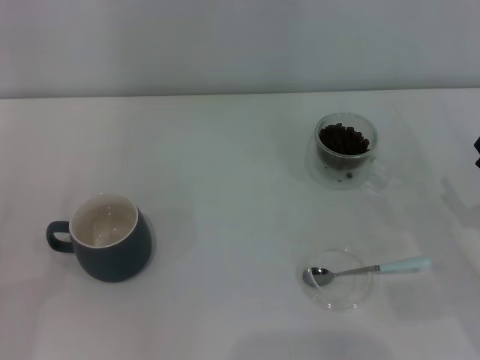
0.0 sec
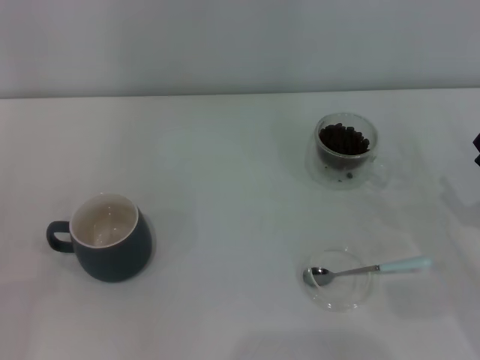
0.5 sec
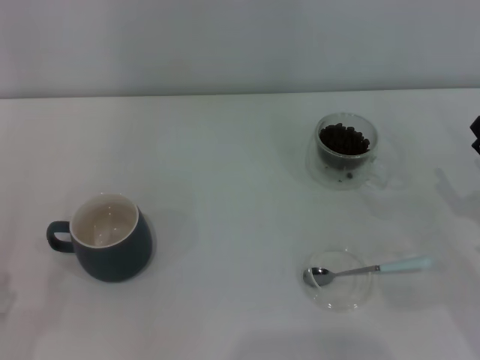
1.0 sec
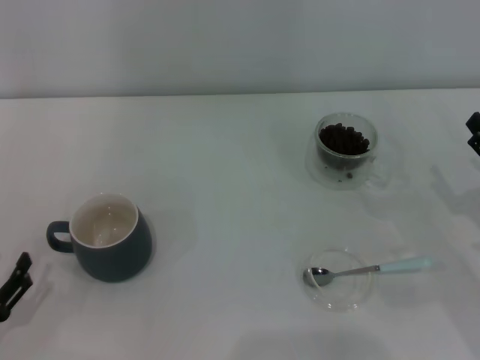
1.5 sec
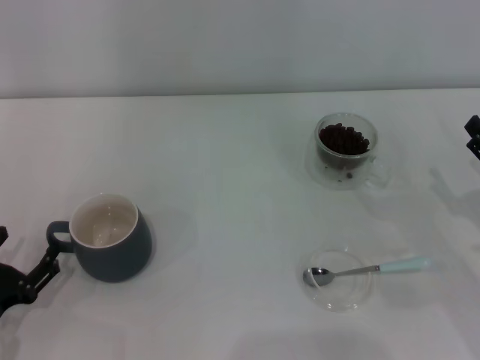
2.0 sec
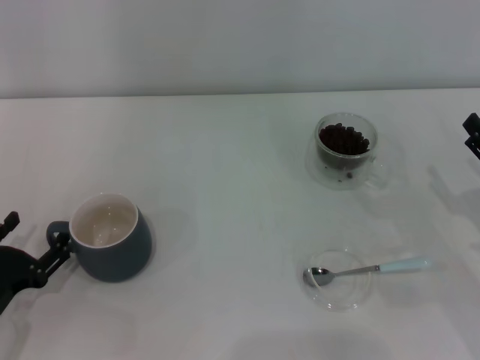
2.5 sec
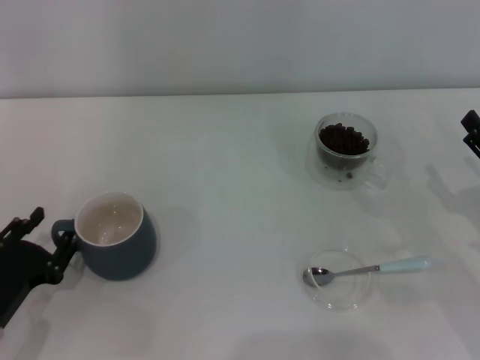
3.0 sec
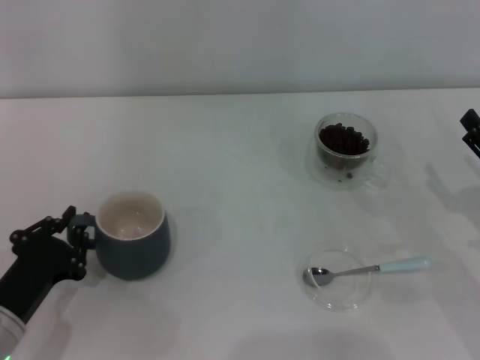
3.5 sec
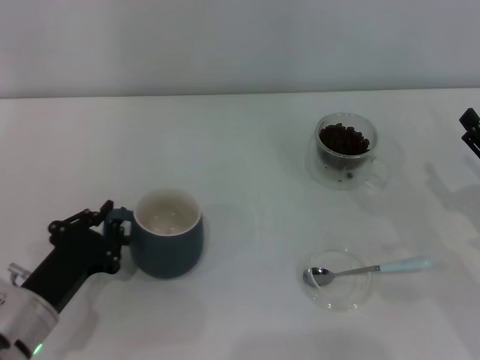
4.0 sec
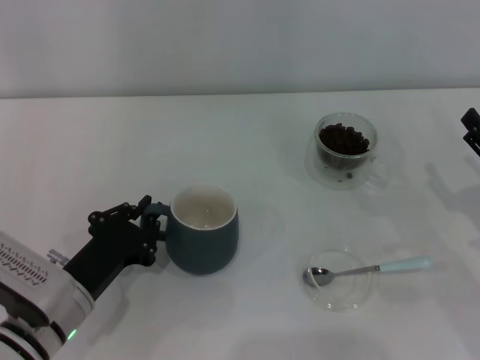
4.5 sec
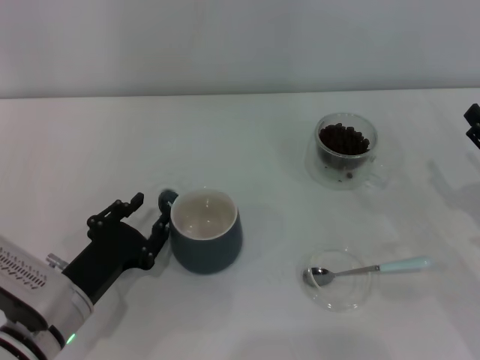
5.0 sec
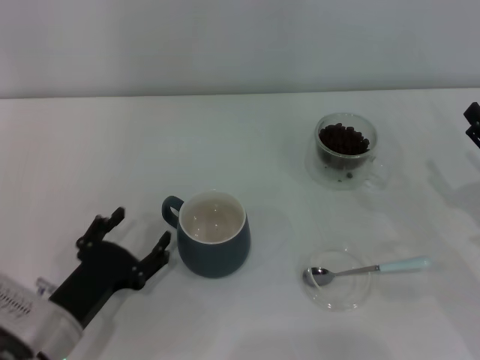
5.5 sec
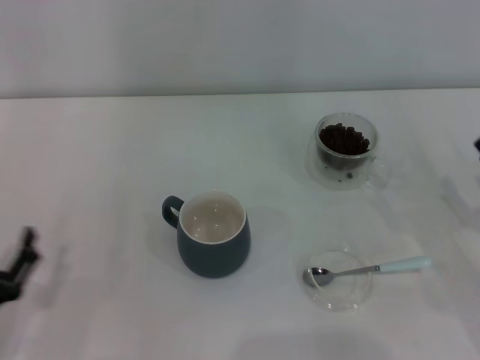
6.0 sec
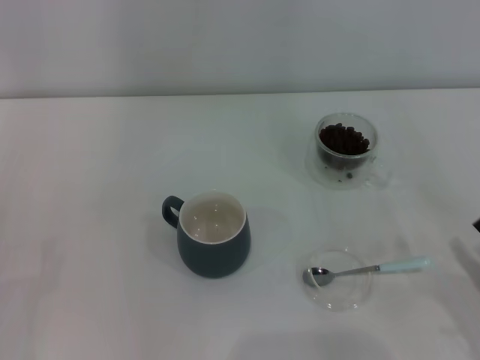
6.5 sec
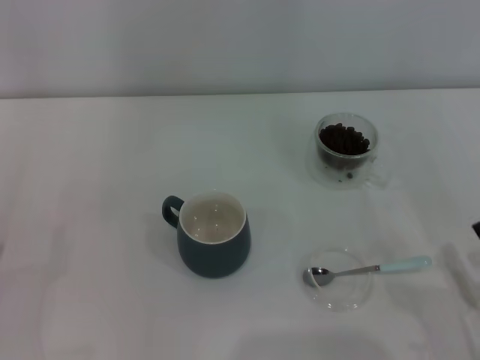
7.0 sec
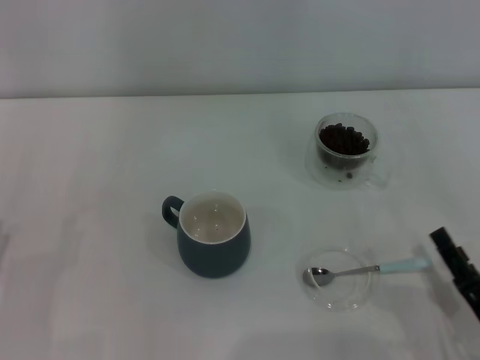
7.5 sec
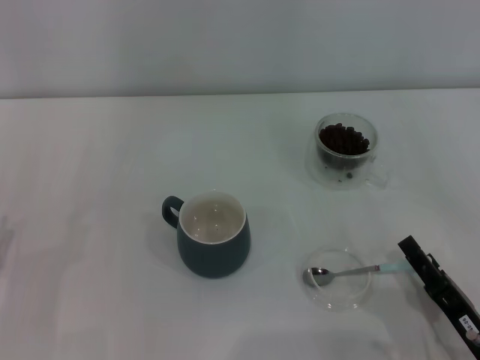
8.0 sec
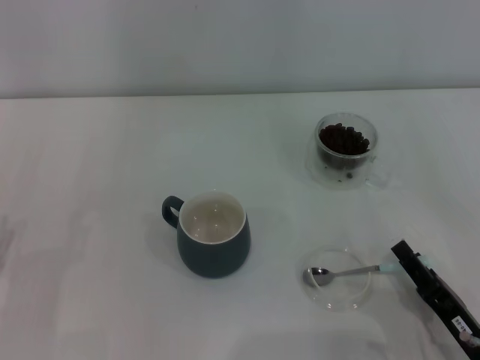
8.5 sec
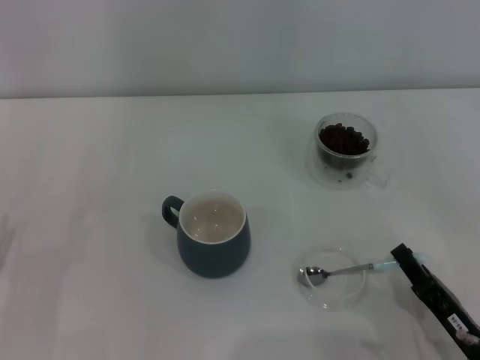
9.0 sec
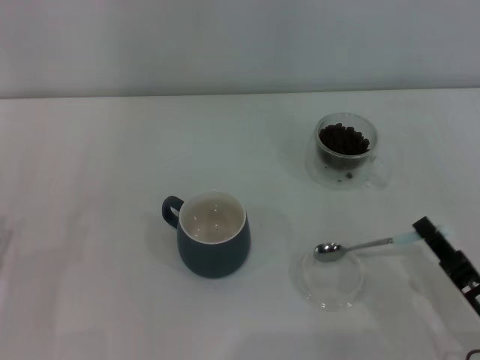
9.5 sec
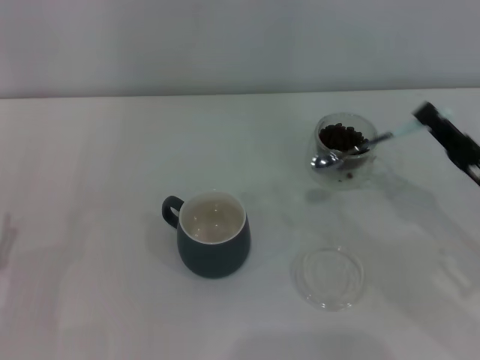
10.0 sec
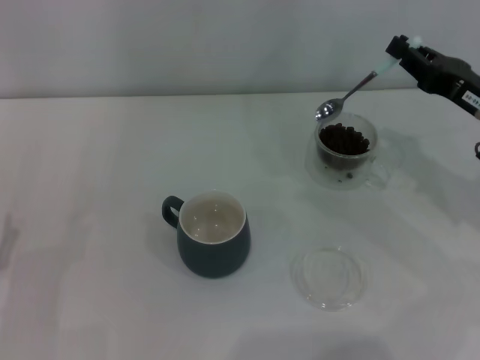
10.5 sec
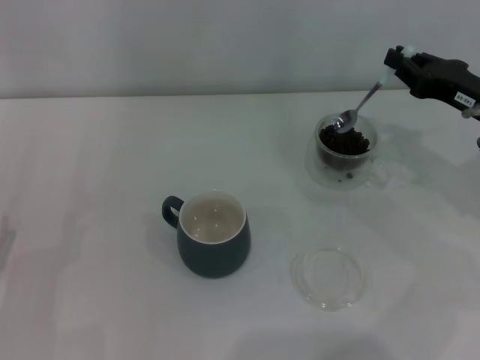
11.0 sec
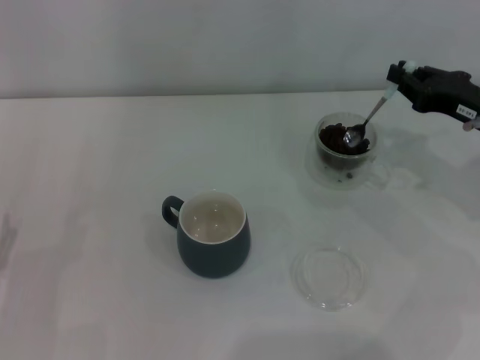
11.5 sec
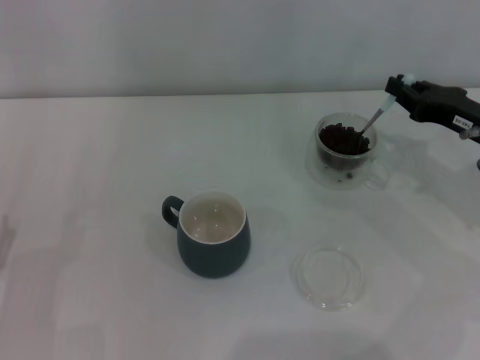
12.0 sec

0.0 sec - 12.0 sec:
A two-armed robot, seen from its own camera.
Task of the whole recording: Use a blue spoon to take out the coffee beans from the glass and pour them into the gray cup.
Step, 0.0 sec - 5.5 sec: Move the cup to the center of view with the left gripper.
Step, 6.0 sec - 9.5 sec: Pick up the spoon with the right gripper.
0.0 sec - 2.0 sec: The left gripper ends up approximately 5 cm from where it was.
2.0 sec - 4.0 sec: The left gripper heads to the right, covering about 5 cm, and closes up.
4.0 sec - 6.0 sec: The left gripper goes some 5 cm backward, and opens its fingers.
6.0 sec - 8.0 sec: The left gripper changes place by approximately 5 cm; the right gripper moves to the left and backward, some 15 cm.
8.0 sec - 10.0 sec: The right gripper goes roughly 15 cm forward, upward and to the right, and closes up.
10.0 sec - 12.0 sec: The right gripper heads forward, covering about 10 cm.

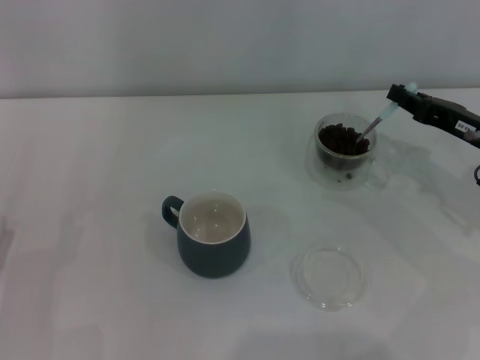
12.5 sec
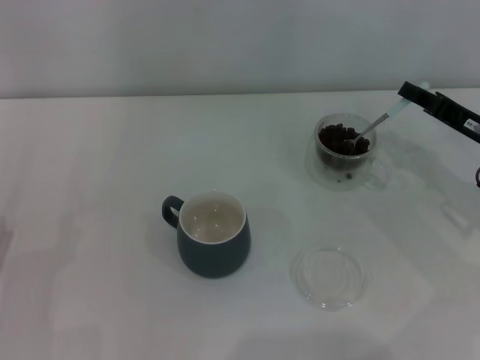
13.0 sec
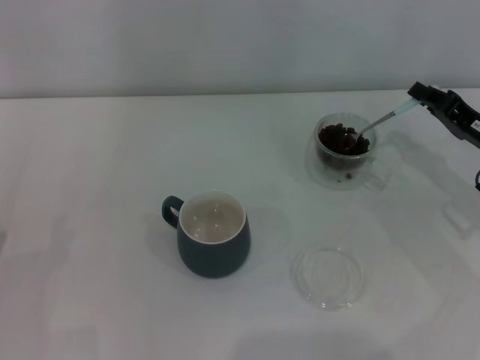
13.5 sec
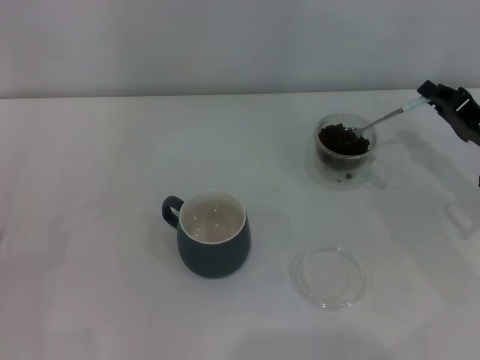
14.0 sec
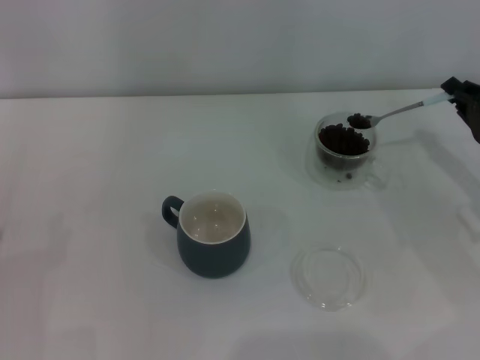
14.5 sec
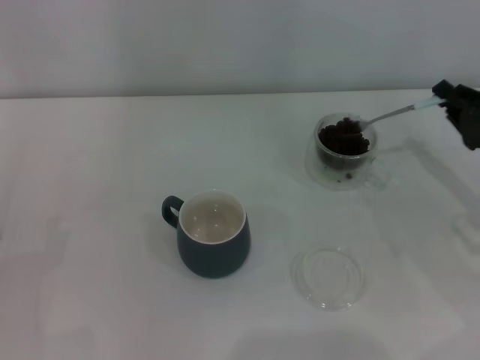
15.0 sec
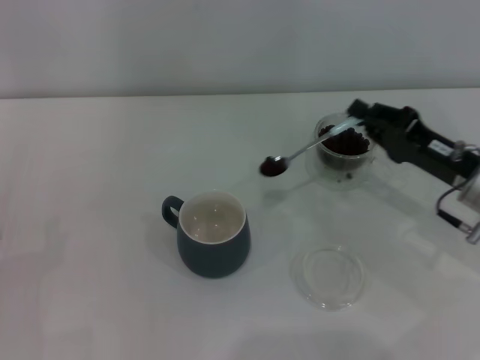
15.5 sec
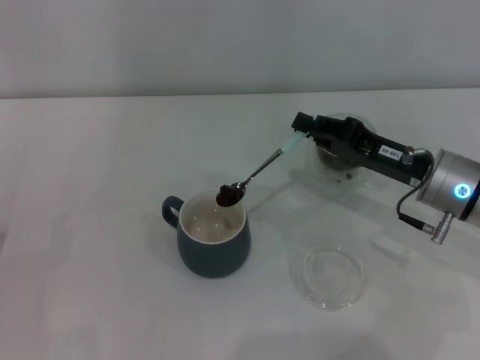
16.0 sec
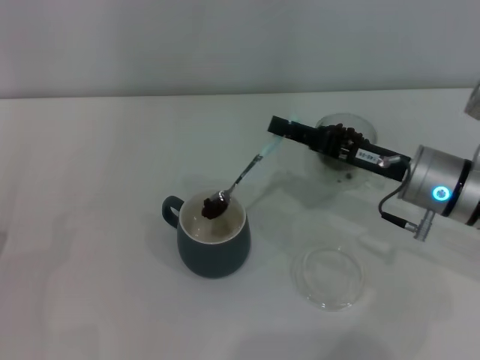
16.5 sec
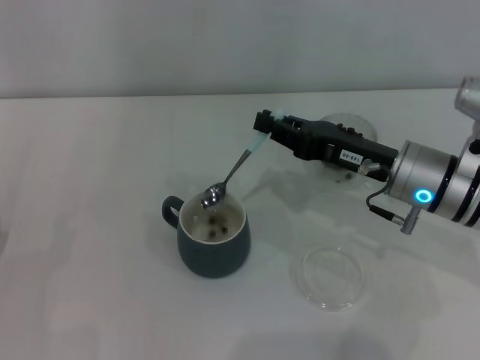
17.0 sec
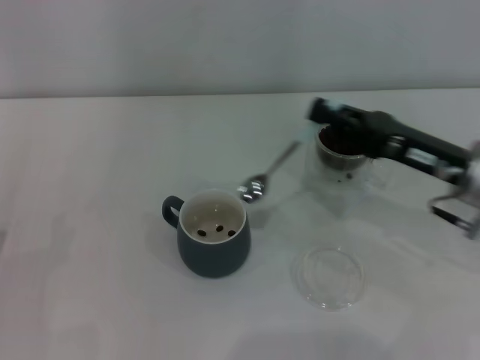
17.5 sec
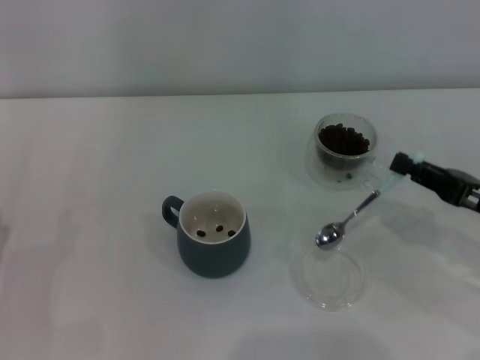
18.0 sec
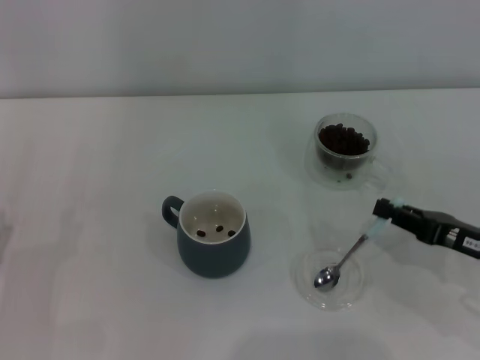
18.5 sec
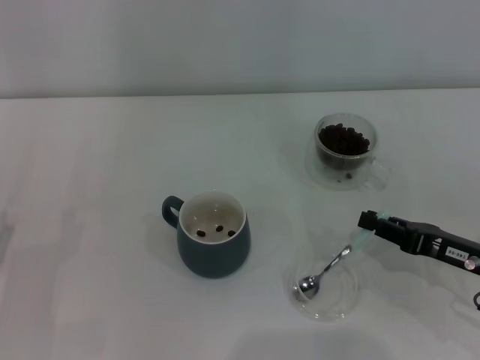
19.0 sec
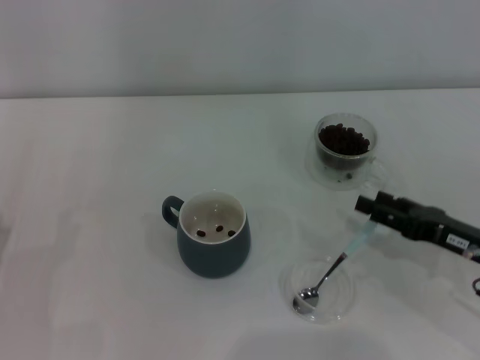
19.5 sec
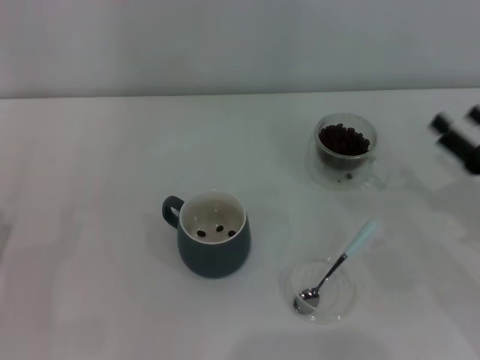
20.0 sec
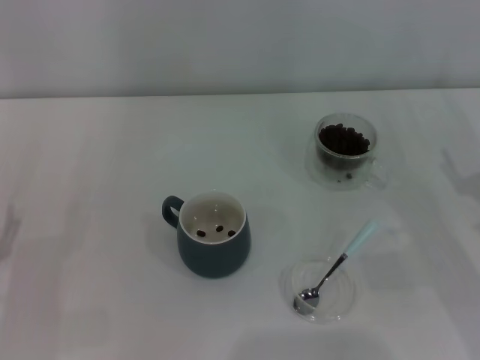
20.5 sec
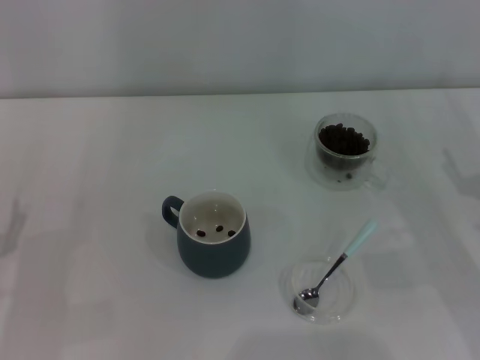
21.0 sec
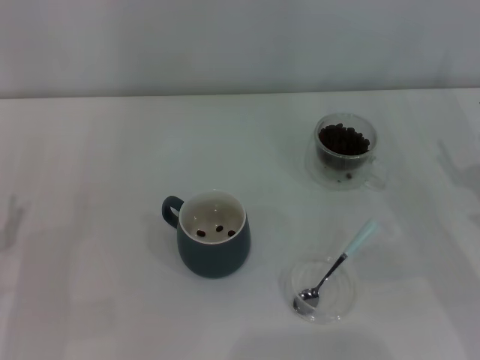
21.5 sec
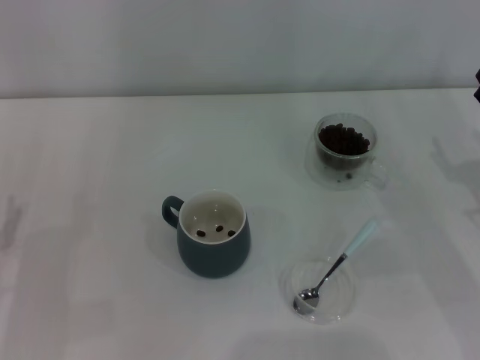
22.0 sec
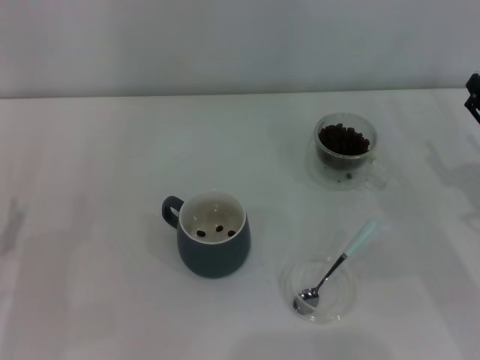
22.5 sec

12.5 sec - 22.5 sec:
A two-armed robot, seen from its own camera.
Task of the whole recording: Use a blue spoon to take out the coffee beans from the glass and pour them into the gray cup.
Step, 12.5 sec - 17.0 sec: Scoop a spoonful of beans into the cup with the right gripper.
Step, 17.5 sec - 19.0 sec: Place the spoon back in its original place with the right gripper.
14.5 sec - 16.5 sec: The right gripper is displaced to the left by some 10 cm.
16.5 sec - 18.5 sec: The right gripper travels to the right and backward by some 15 cm.
18.5 sec - 20.5 sec: The right gripper opens up.
